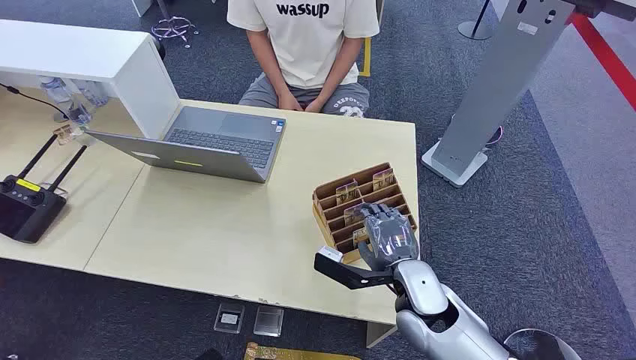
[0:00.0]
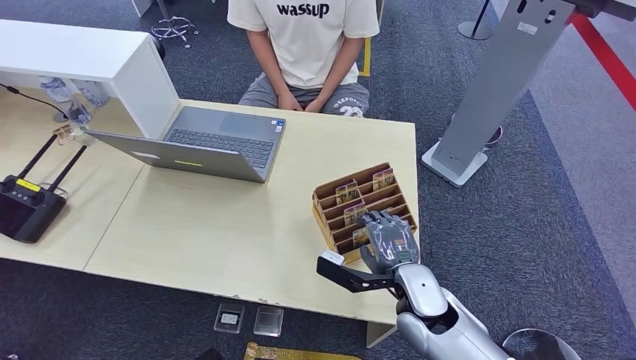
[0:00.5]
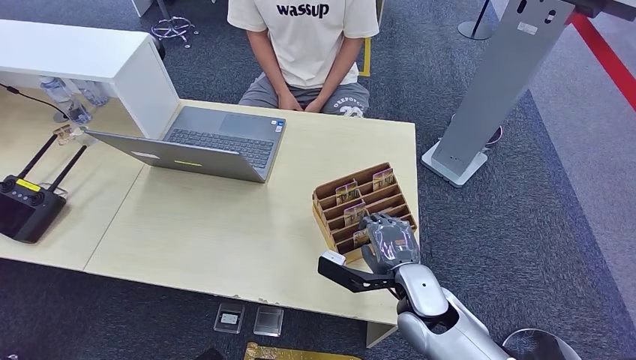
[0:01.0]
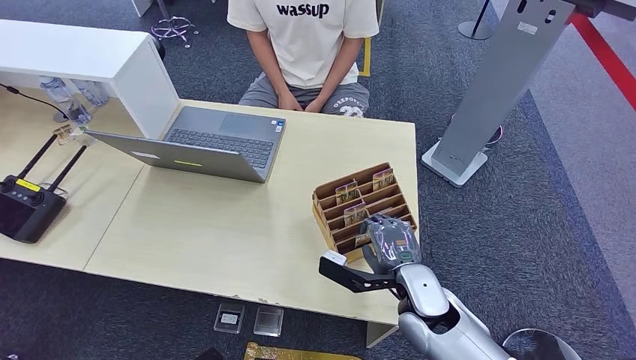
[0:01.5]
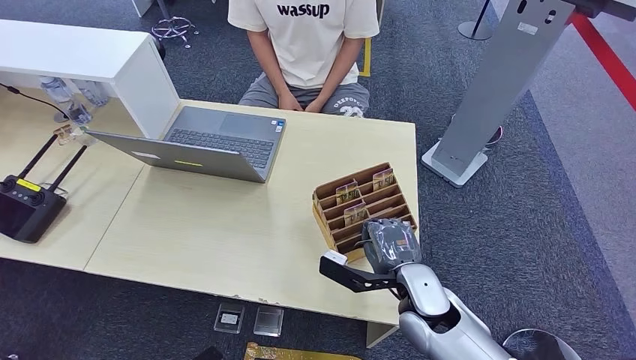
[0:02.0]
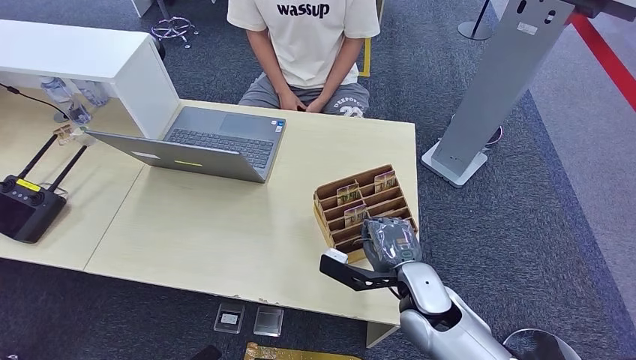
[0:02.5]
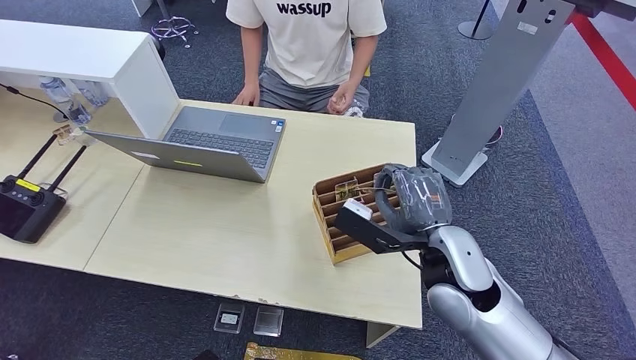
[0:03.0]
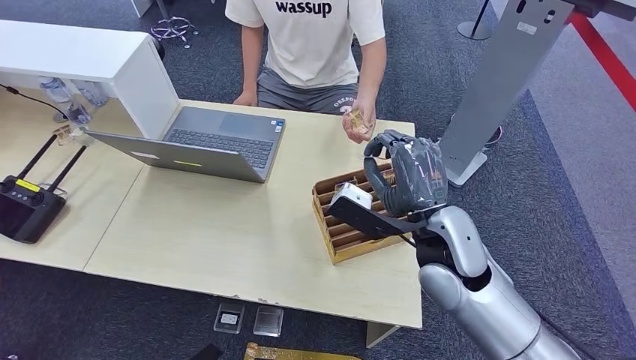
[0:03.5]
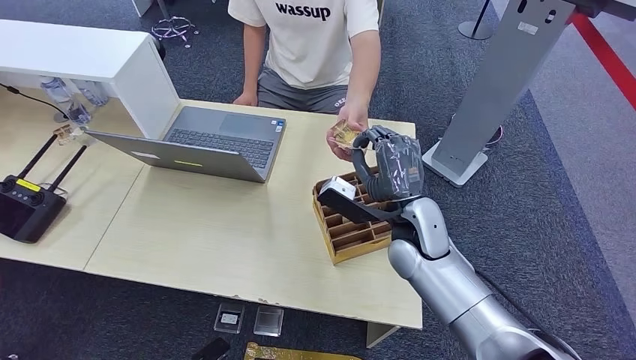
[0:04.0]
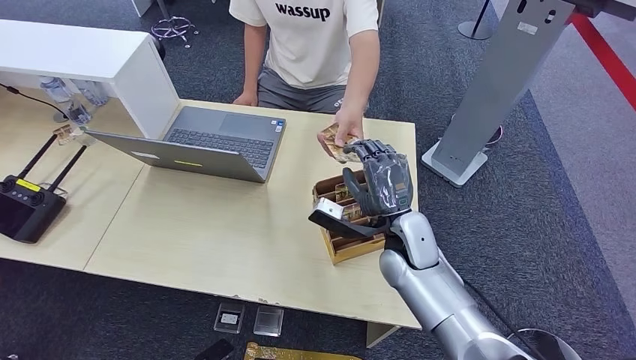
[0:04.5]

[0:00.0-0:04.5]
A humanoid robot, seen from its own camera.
Step, 0:00.0 to 0:02.5: Pick up the key card from the card box.
Step, 0:03.5 to 0:04.5: Hand the key card to the target.
0:02.0 to 0:04.5: The right hand moves forward, approximately 10 cm.
